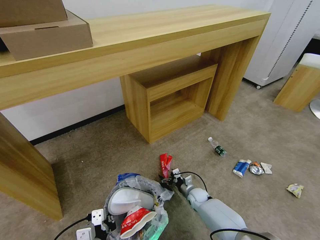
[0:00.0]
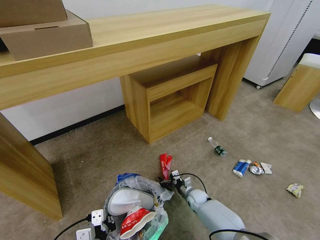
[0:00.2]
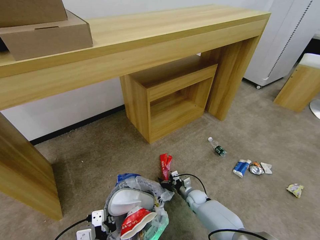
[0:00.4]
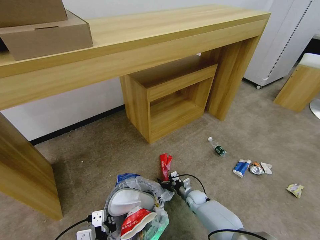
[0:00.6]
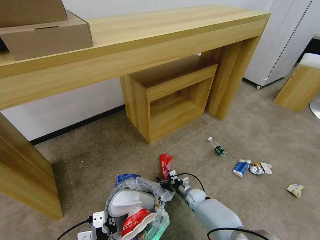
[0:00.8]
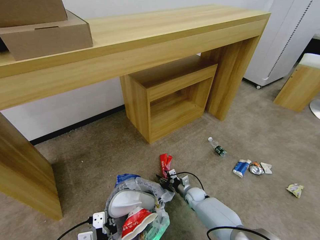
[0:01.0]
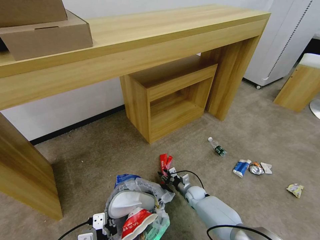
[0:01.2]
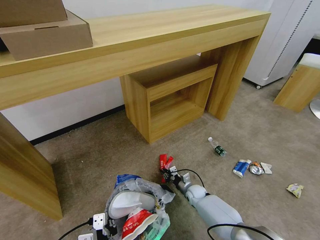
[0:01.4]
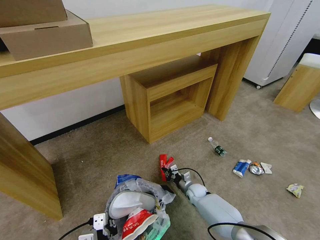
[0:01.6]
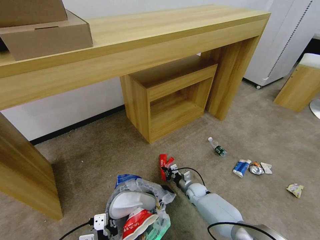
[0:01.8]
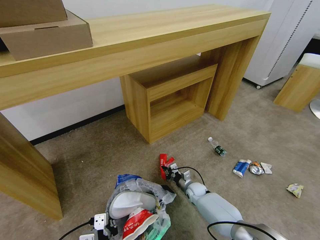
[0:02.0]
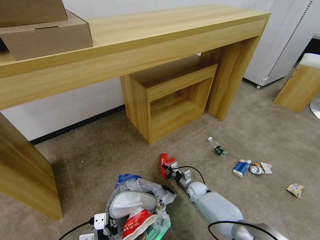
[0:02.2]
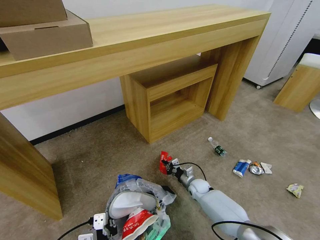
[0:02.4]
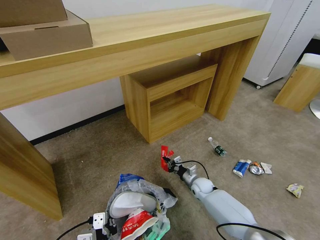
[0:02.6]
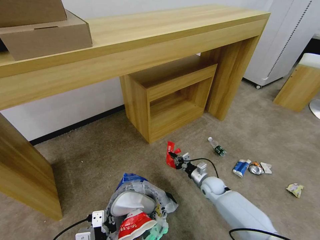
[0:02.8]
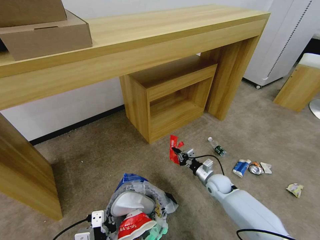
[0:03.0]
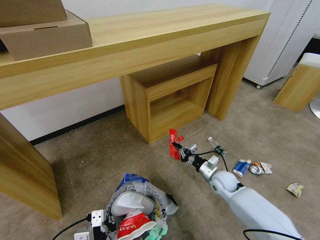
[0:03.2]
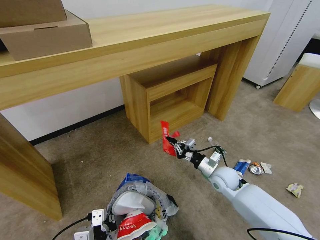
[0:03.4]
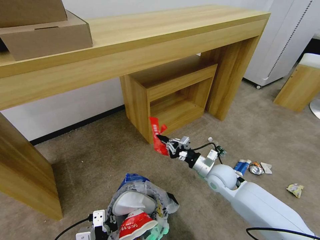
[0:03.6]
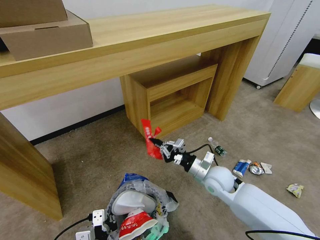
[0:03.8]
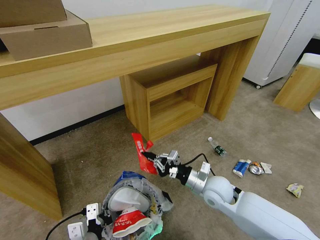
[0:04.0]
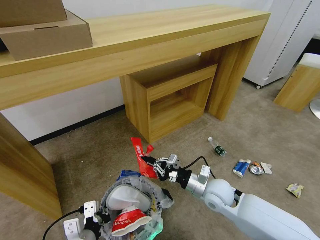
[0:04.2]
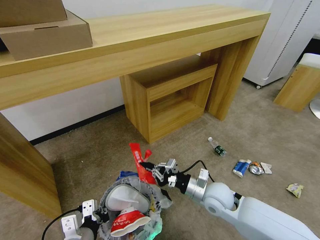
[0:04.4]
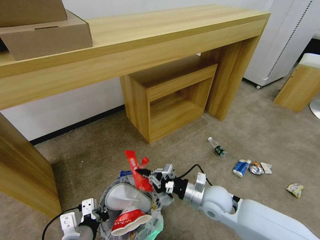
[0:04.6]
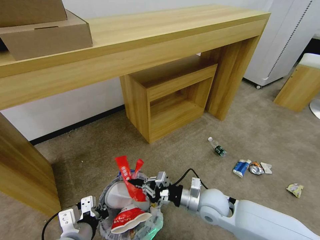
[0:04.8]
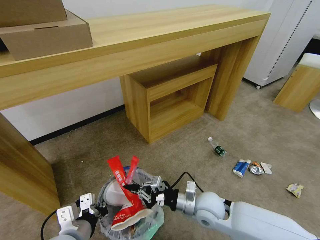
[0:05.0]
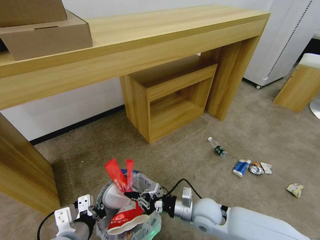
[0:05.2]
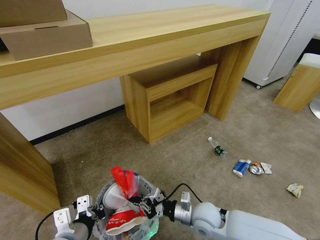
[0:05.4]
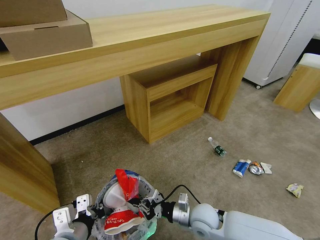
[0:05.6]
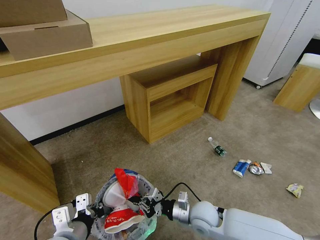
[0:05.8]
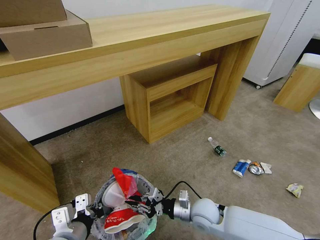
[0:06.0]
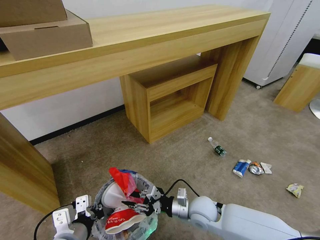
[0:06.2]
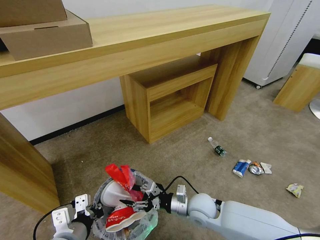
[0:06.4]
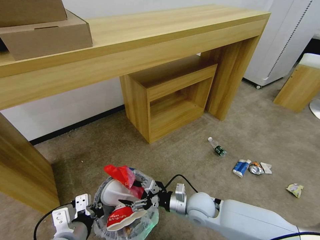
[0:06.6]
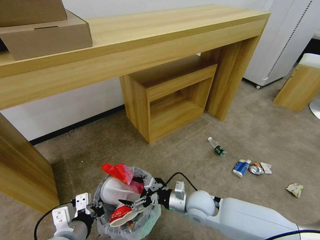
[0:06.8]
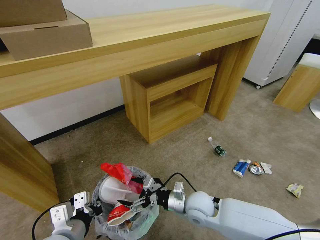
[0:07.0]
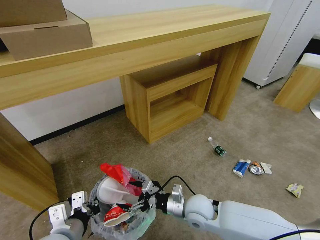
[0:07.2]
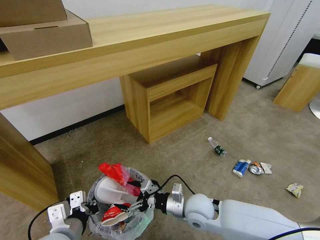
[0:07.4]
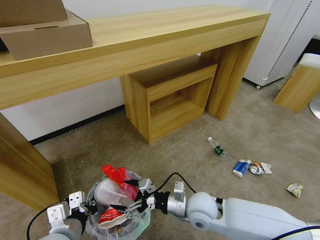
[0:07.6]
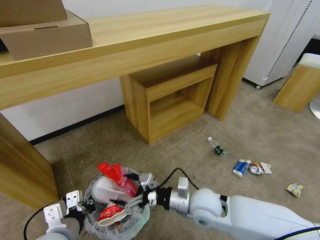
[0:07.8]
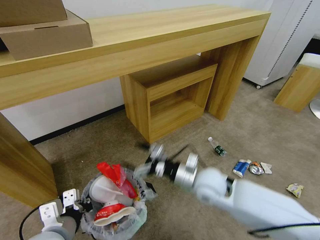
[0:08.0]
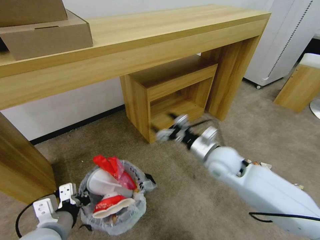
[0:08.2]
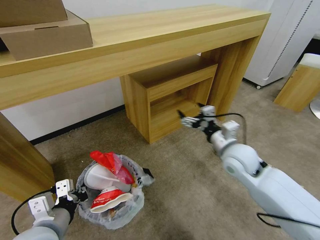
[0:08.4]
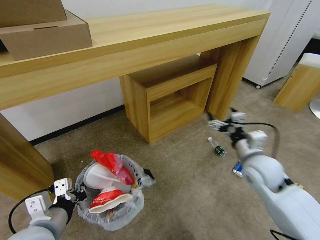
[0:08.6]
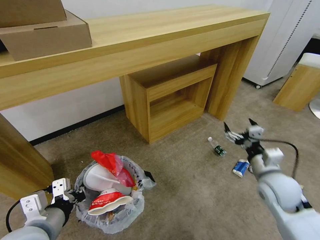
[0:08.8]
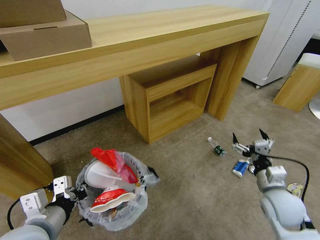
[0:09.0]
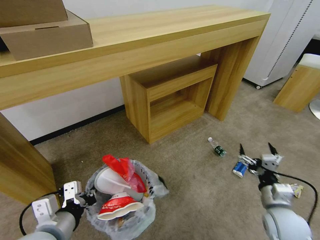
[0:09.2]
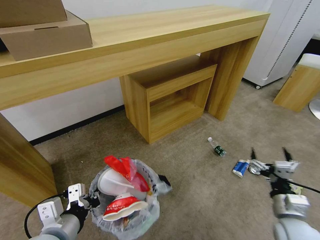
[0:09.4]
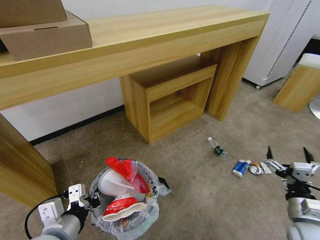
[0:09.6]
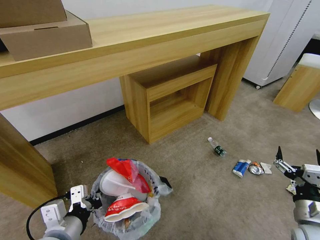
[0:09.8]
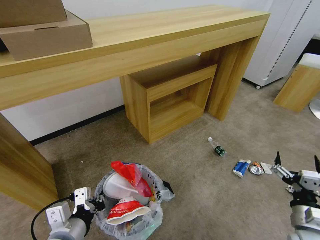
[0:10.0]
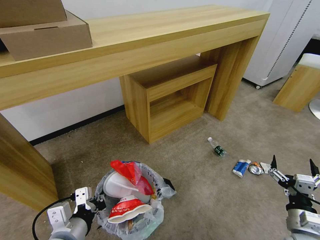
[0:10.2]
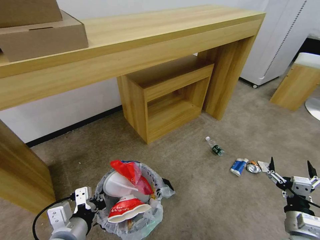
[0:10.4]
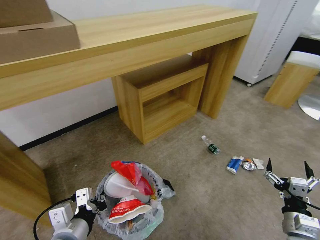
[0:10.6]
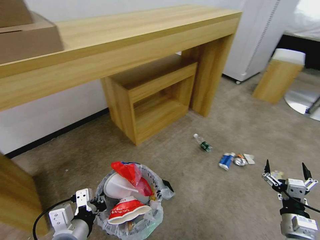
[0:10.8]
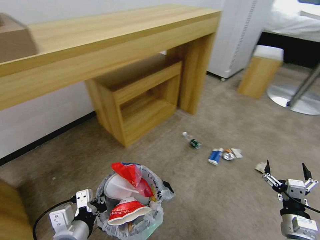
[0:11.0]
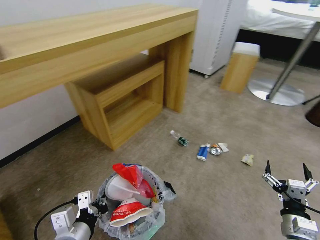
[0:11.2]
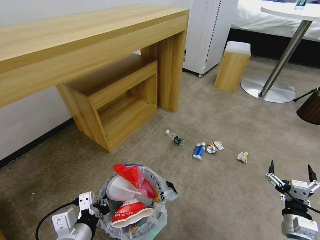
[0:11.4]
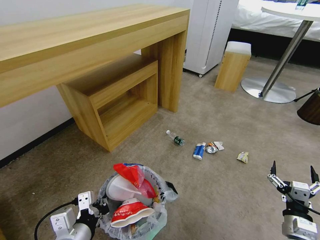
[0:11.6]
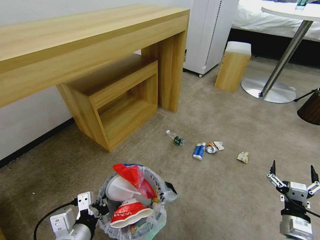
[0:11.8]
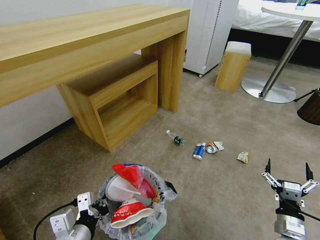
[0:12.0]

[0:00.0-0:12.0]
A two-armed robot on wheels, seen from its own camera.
Task of the whole recording: Pick up the trash bin and place the garbage on the floor into it.
0:00.0 to 0:01.6: The right gripper closes up.
0:01.6 to 0:03.0: The grippers make only small movements.
0:03.0 to 0:04.4: The right gripper is displaced upward by some 25 cm.
0:04.4 to 0:06.0: The right gripper is displaced backward and downward by roughly 10 cm, while the left gripper heads upward, covering about 10 cm.
0:06.0 to 0:07.6: The right gripper opens its fingers.
0:07.6 to 0:09.0: The right gripper heads upward, to the right and forward, covering about 20 cm.
0:09.0 to 0:10.4: The right gripper heads backward, to the right and downward, covering roughly 25 cm.
0:10.4 to 0:12.0: The right gripper shifts about 10 cm downward.

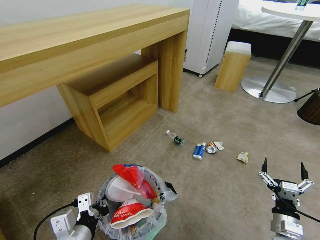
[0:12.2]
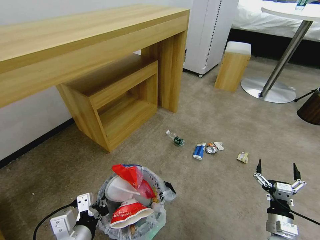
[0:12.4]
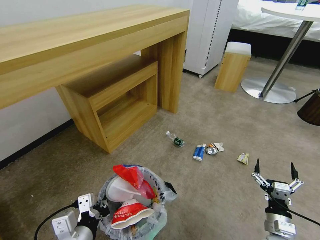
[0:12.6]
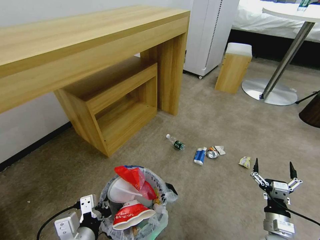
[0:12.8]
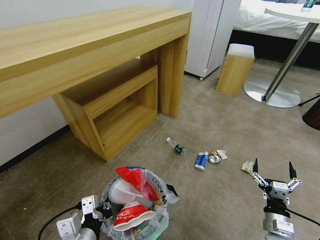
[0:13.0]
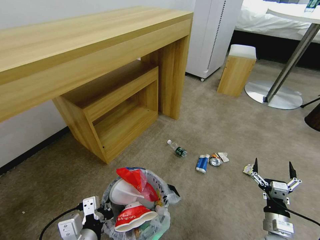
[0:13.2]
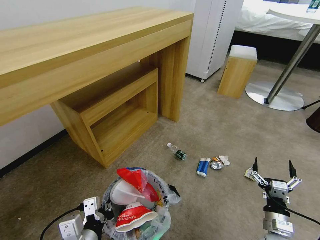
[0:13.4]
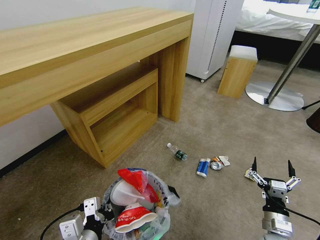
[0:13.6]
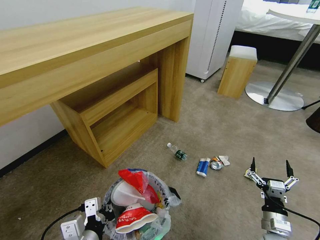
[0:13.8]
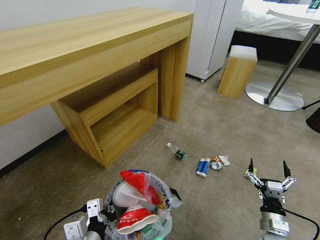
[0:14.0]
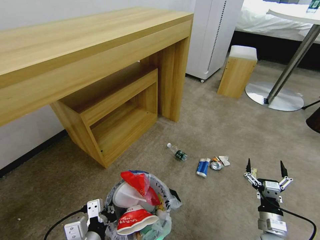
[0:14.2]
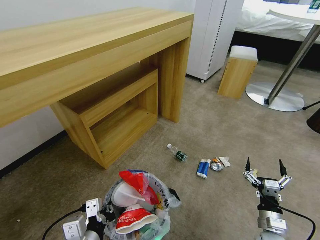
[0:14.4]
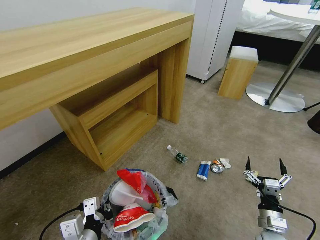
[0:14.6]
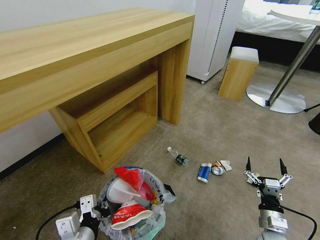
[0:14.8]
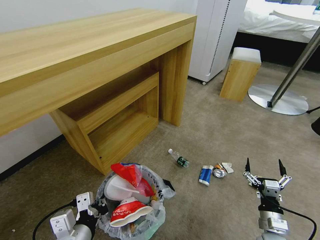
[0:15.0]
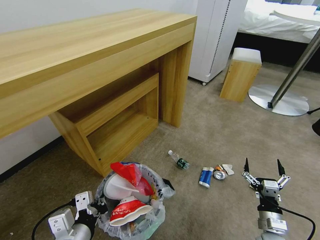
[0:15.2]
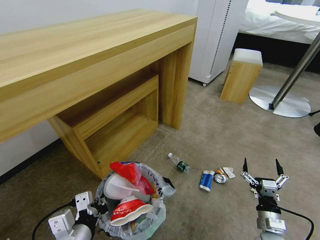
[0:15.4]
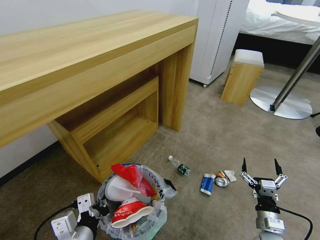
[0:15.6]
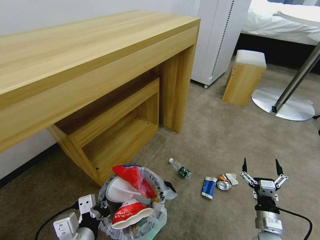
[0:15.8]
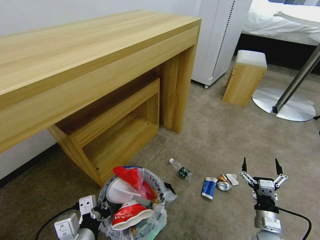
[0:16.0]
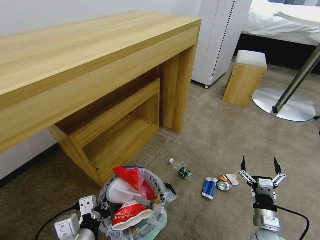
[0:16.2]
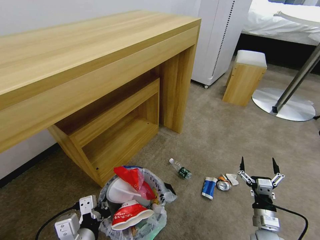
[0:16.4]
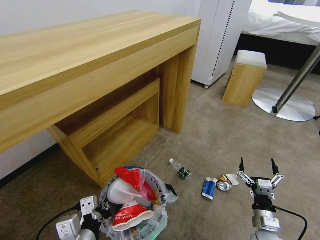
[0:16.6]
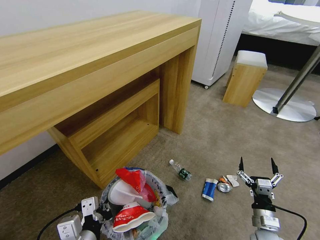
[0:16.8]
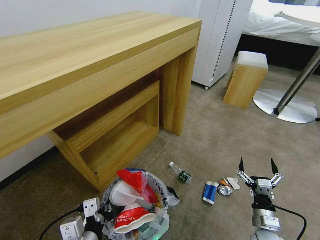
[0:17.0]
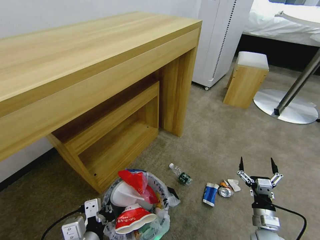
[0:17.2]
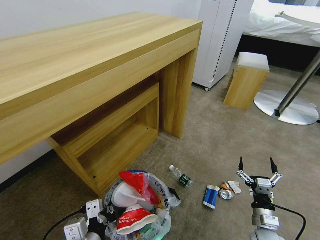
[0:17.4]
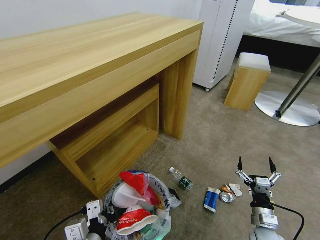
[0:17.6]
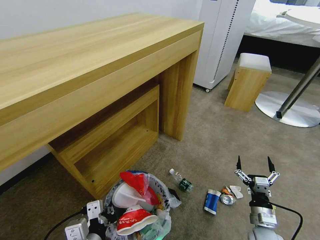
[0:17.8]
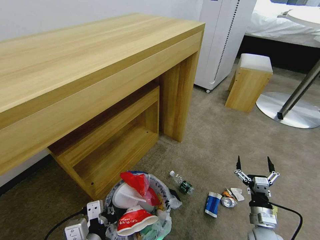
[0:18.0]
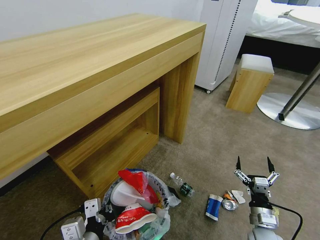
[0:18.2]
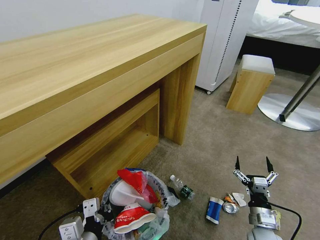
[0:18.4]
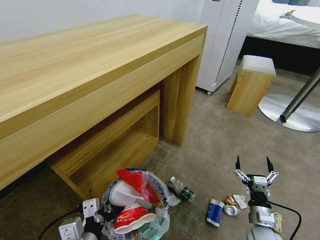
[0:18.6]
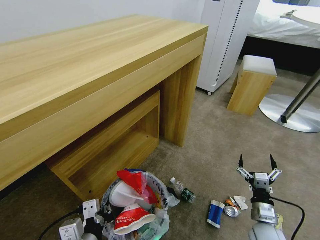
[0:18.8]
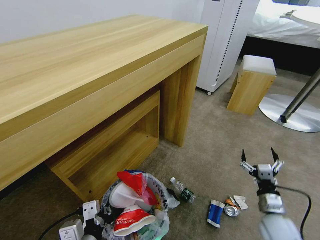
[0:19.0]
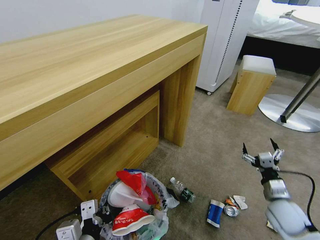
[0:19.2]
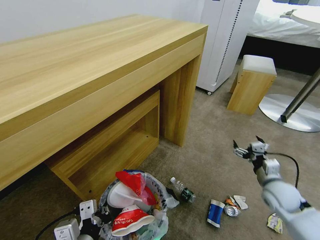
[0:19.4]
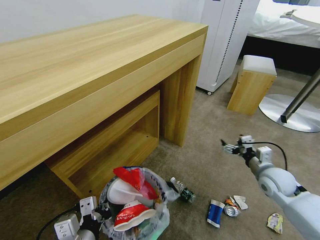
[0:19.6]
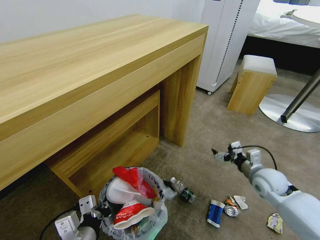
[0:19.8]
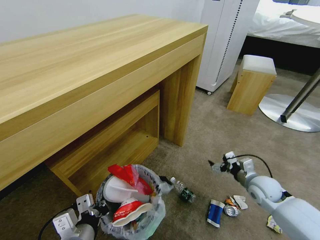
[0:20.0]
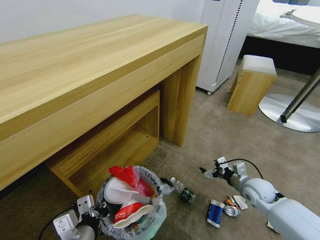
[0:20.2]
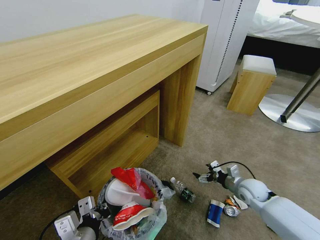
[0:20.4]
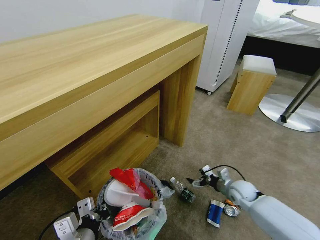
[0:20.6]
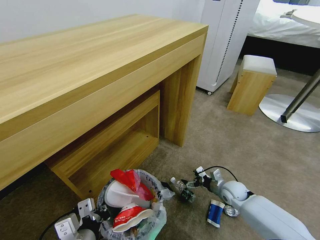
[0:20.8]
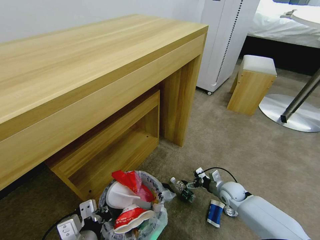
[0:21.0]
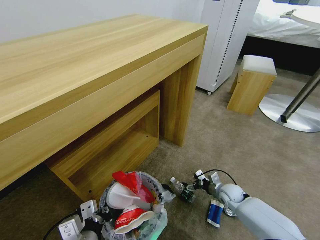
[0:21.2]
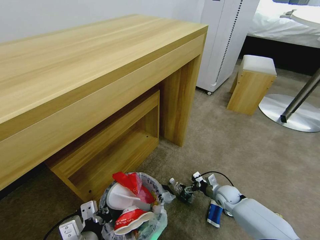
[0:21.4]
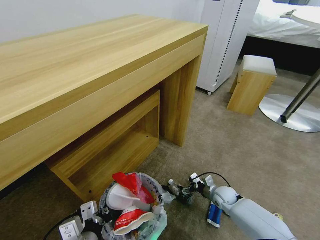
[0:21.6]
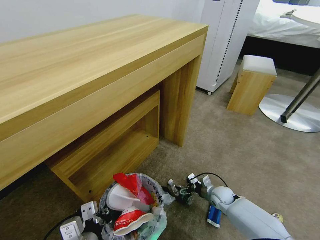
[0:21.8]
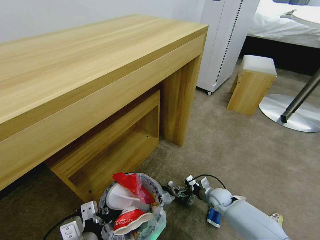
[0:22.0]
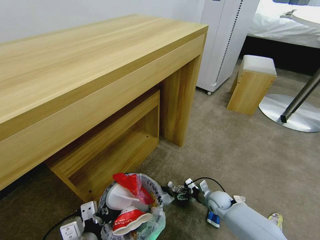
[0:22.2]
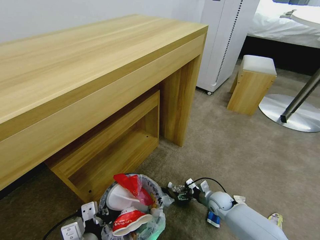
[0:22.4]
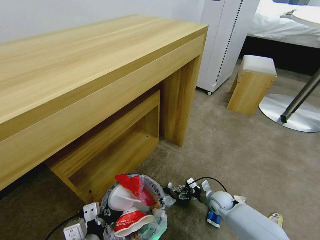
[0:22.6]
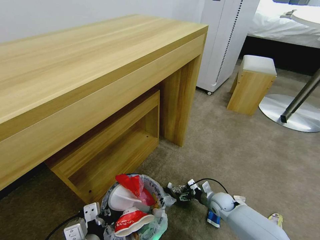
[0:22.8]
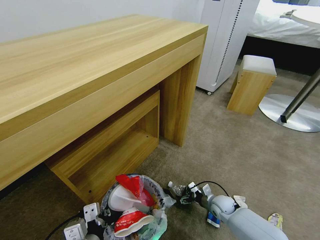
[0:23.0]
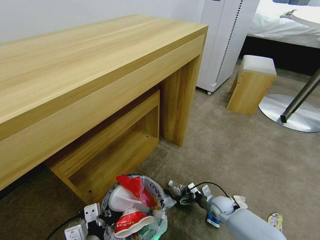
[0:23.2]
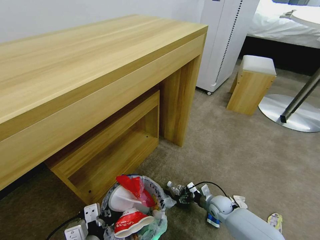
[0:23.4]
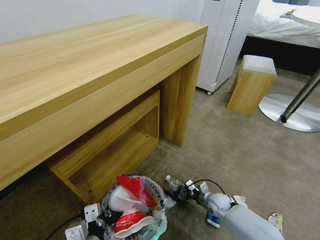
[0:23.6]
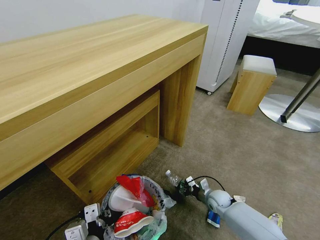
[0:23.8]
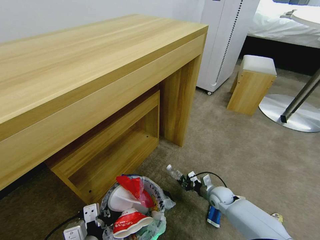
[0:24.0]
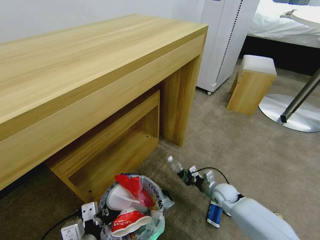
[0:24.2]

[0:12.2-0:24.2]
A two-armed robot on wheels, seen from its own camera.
Task of the whole recording: Pick up the trash bin and place the garbage on the floor into it.
0:18.2 to 0:19.8: The right gripper shifts about 20 cm forward and upward.
0:19.8 to 0:21.2: The right gripper travels downward by approximately 15 cm.
0:21.2 to 0:22.6: The right gripper ends up roughly 5 cm from where it was.
0:22.6 to 0:24.2: The right gripper is displaced upward by some 5 cm, and closes up.
